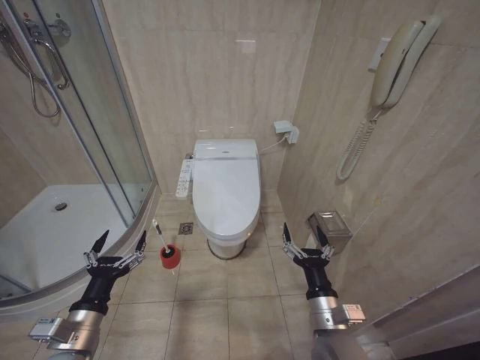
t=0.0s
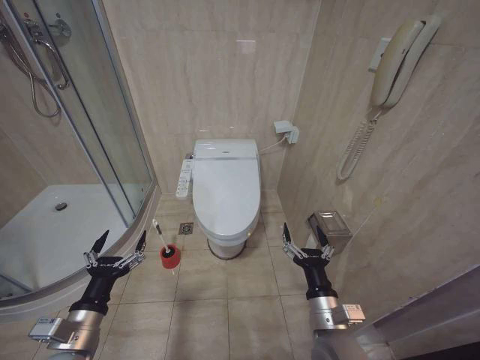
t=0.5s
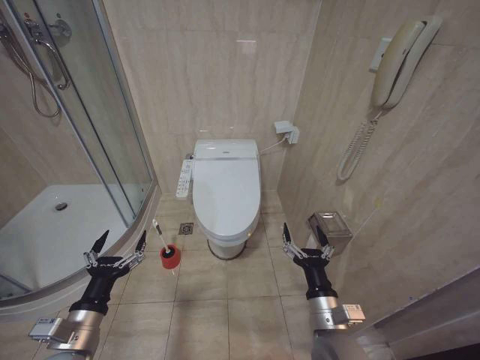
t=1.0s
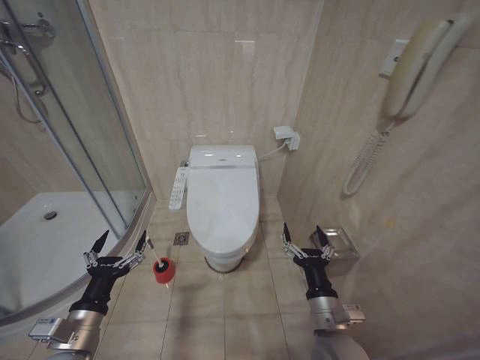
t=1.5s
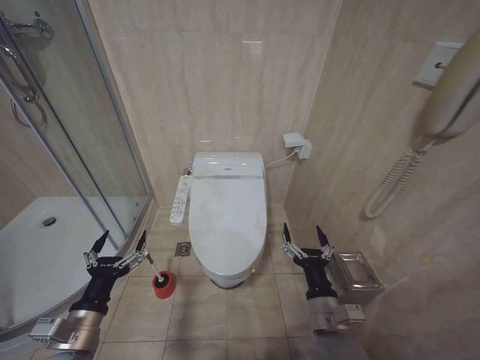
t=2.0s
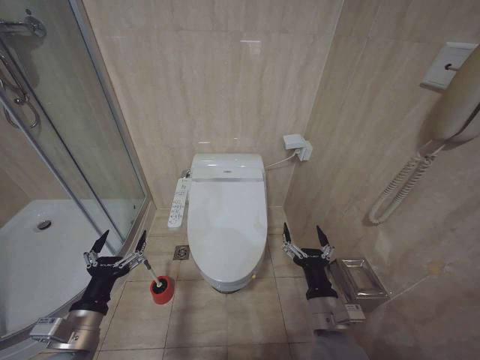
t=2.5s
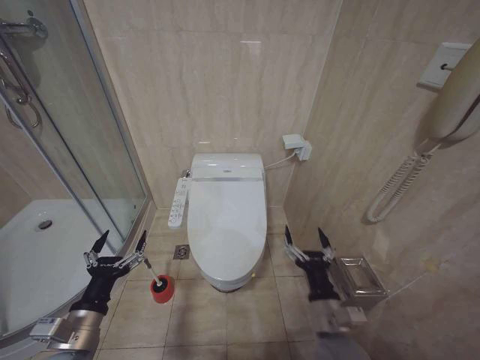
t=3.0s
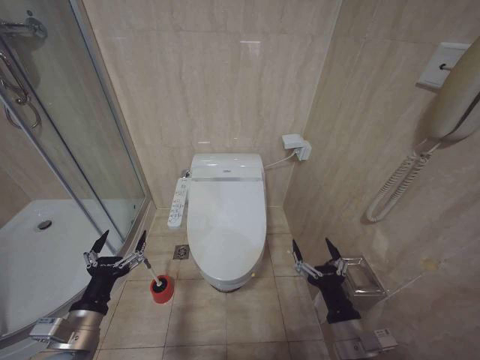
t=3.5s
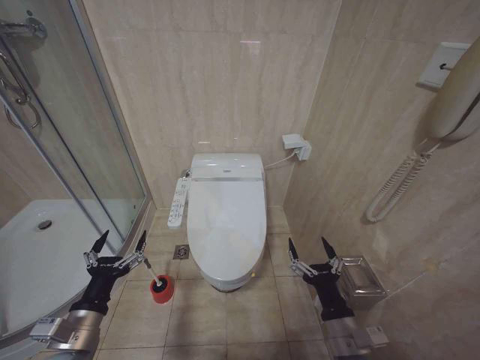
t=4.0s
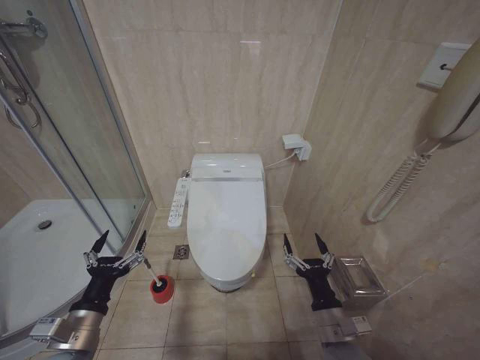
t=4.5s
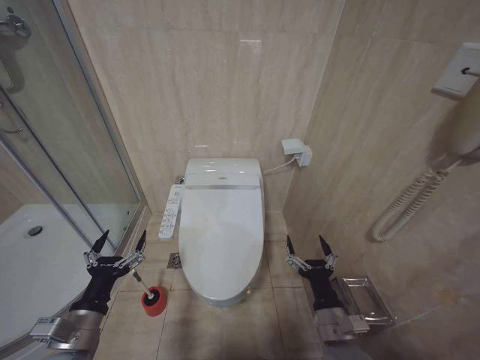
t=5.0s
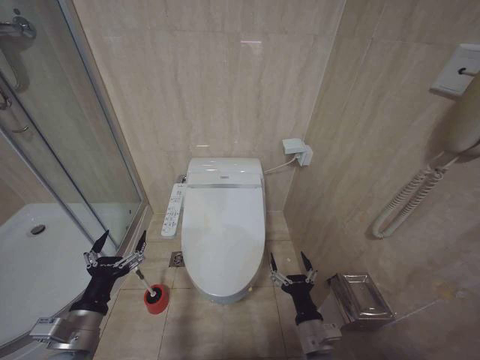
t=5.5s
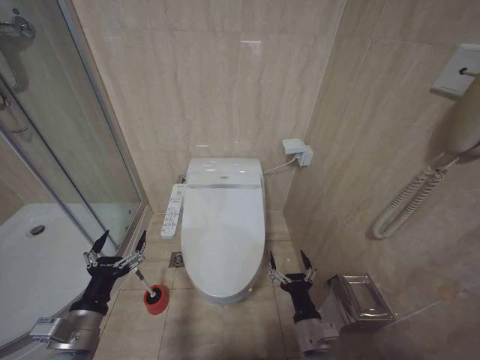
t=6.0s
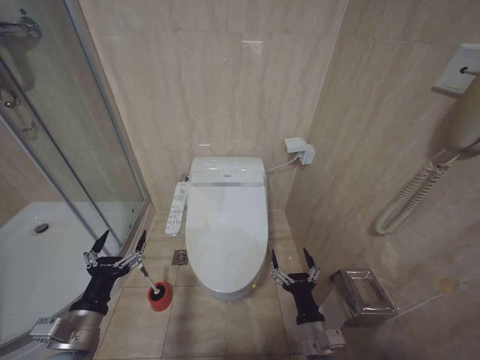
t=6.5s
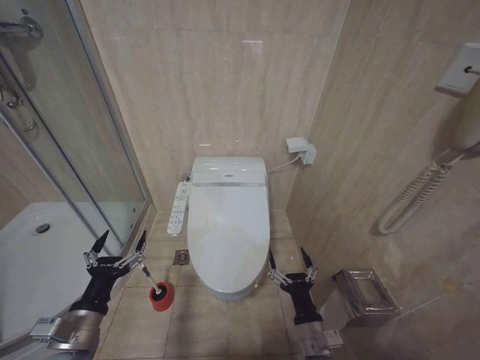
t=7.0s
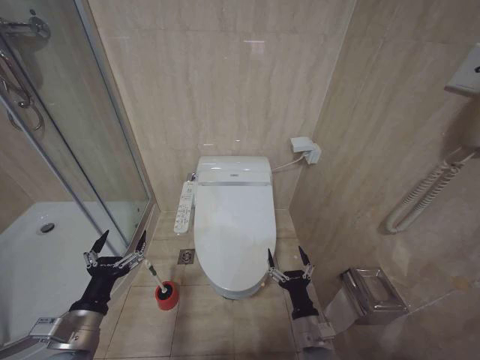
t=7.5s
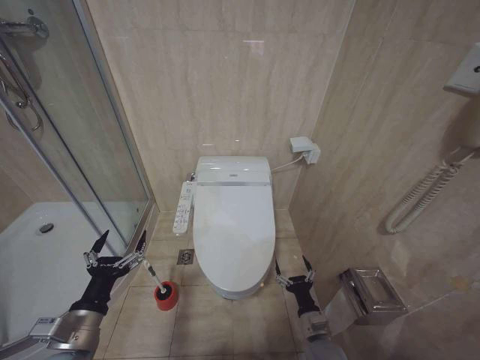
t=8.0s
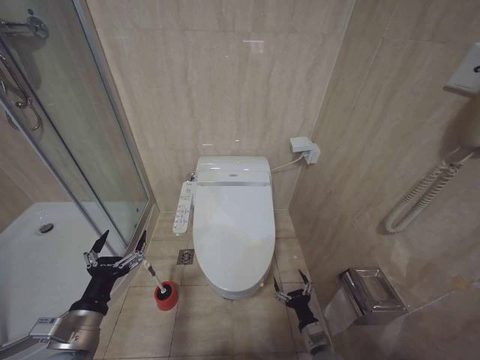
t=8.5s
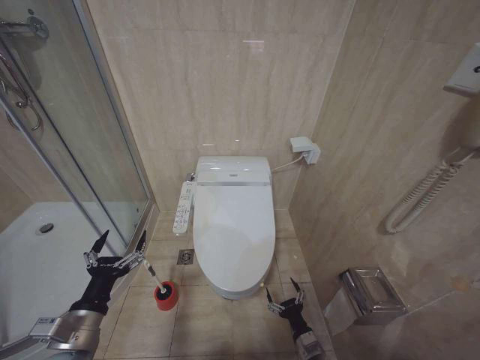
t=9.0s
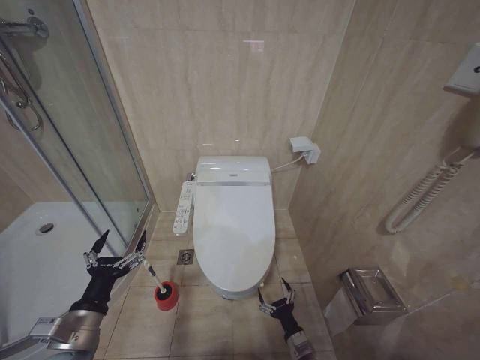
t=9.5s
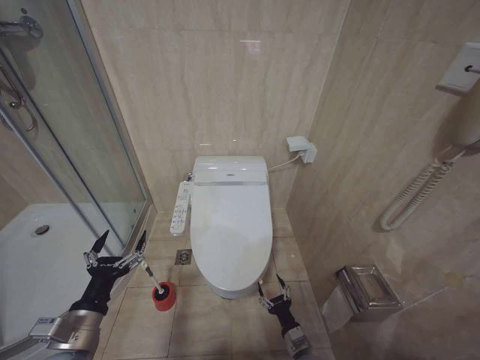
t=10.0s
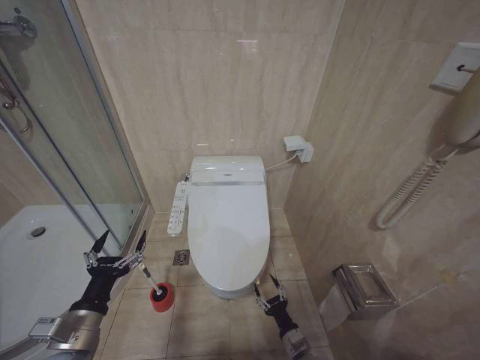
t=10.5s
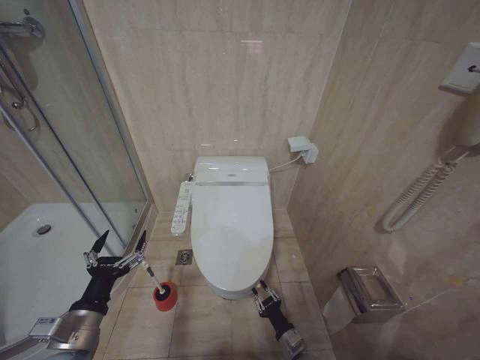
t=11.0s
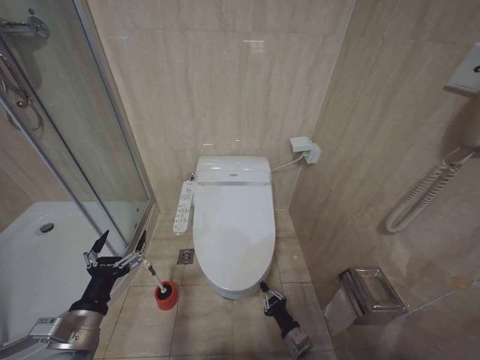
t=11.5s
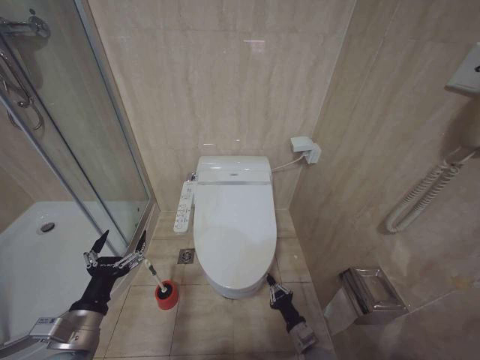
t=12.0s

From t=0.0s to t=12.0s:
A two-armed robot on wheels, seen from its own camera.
Task of the whole recording: Open the toilet lid, clean the toilet bowl with a toilet brush, close the toilet lid, and flush.
From t=2.0s to t=4.0s: The right gripper ends up about 5 cm from where it was.
From t=4.0s to t=6.0s: The right gripper shifts roughly 10 cm downward.
From t=6.0s to t=8.0s: The right gripper goes some 10 cm downward.
From t=8.0s to t=10.0s: The right gripper travels downward by approximately 10 cm.
From t=10.0s to t=12.0s: The right gripper closes.

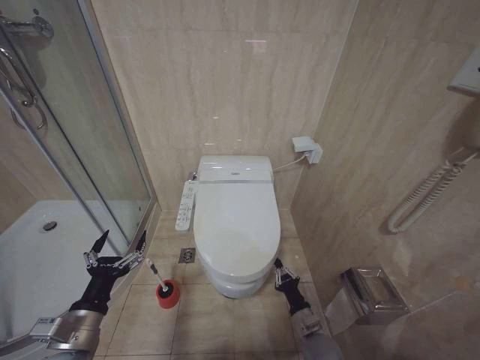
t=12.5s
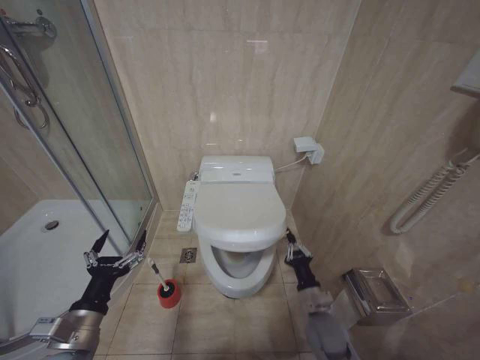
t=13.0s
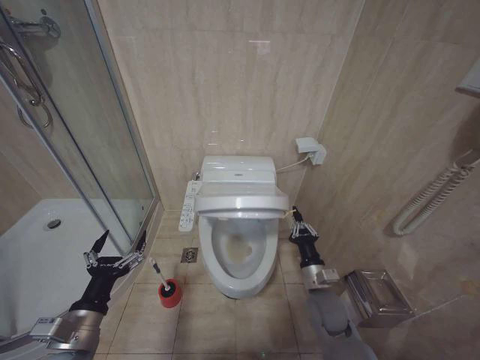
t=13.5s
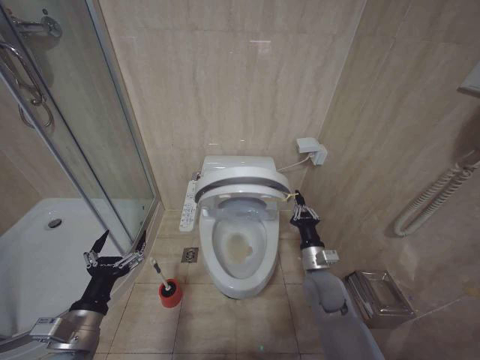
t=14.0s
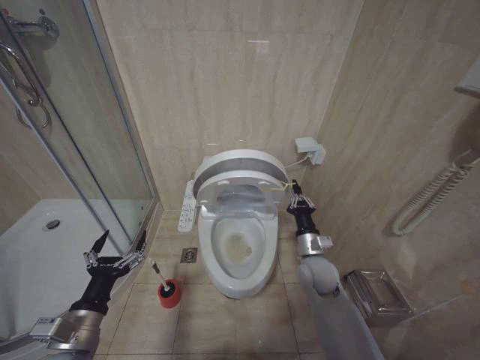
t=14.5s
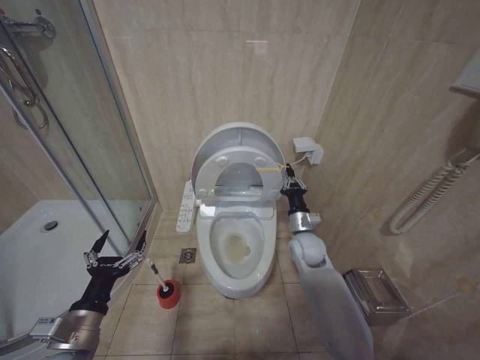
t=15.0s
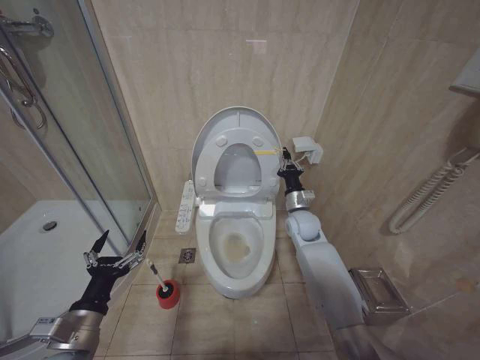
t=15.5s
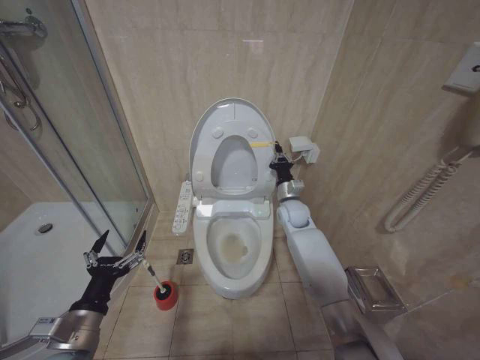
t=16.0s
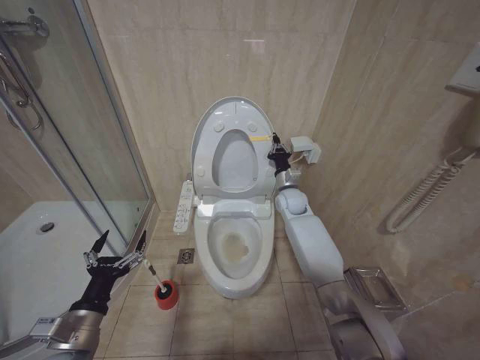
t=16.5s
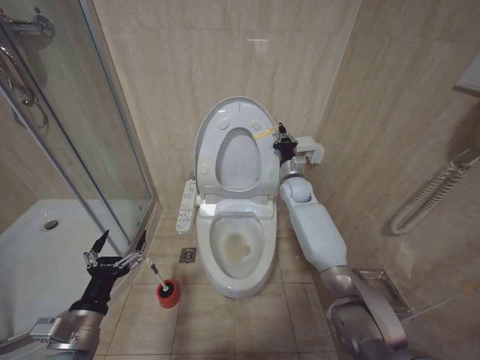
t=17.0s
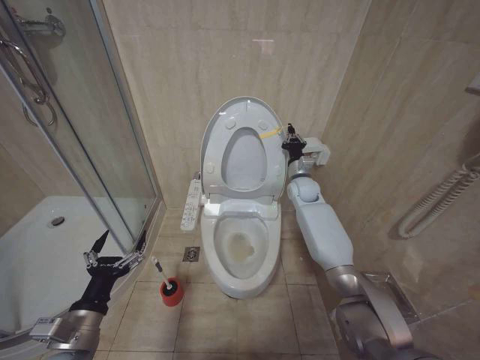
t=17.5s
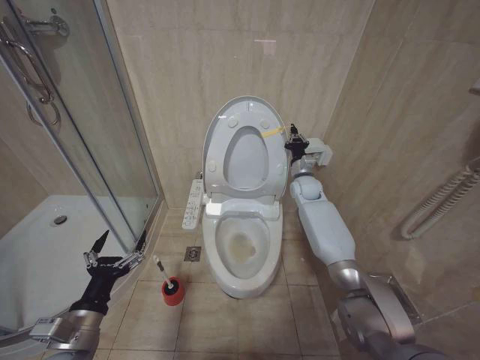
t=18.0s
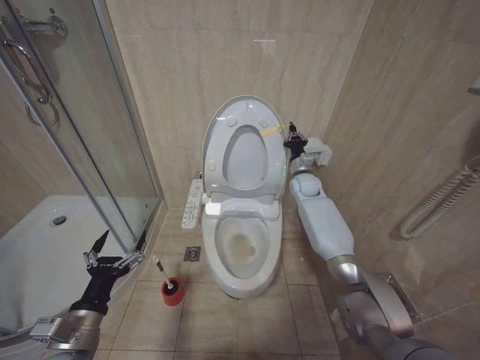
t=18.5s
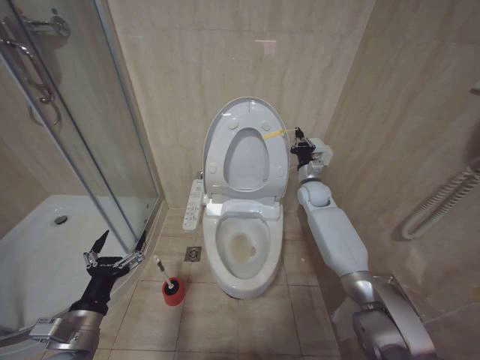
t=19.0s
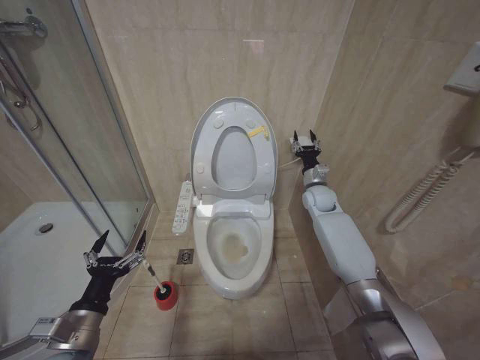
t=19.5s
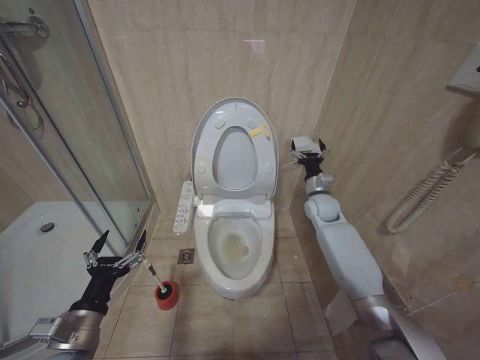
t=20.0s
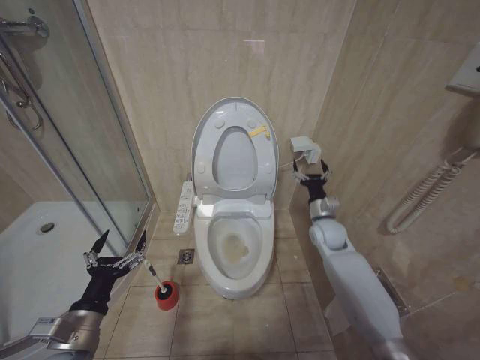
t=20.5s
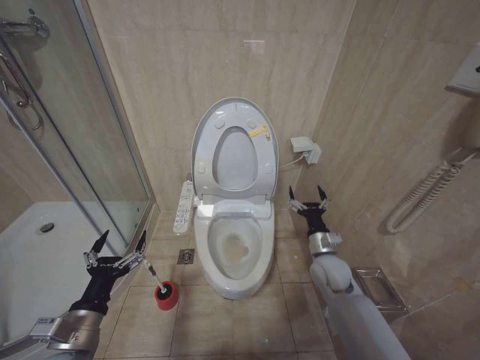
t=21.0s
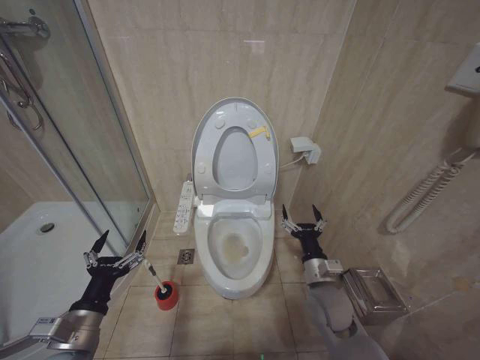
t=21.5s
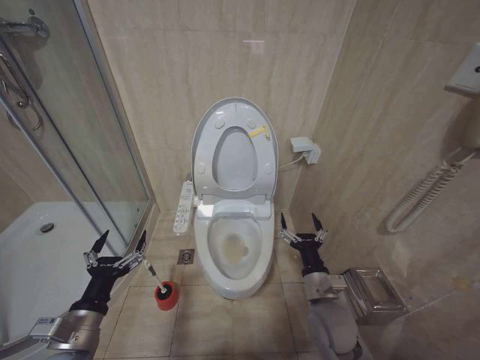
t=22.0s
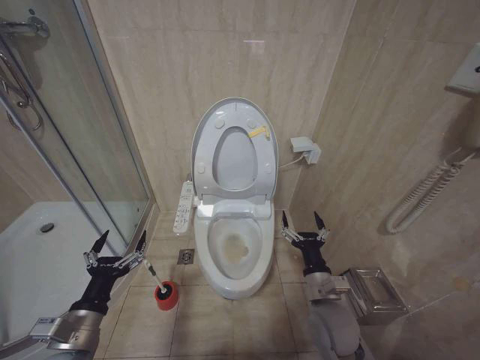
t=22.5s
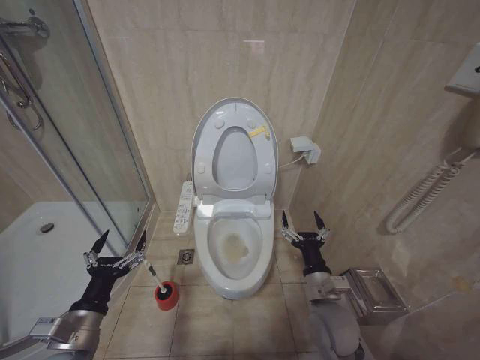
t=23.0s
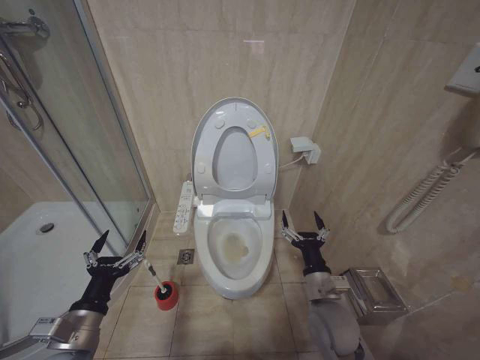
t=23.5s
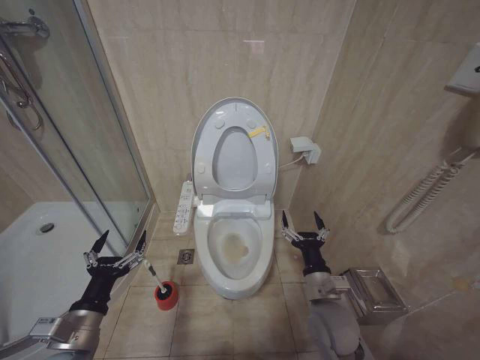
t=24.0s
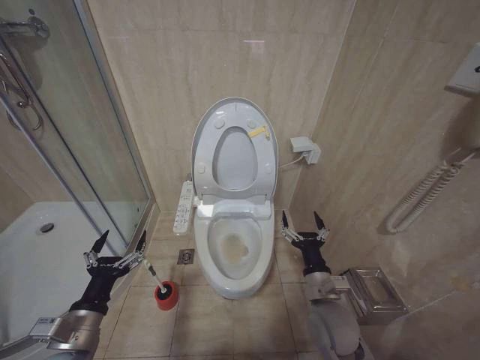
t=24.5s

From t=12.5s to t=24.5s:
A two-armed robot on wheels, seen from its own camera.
Task of the whole recording: Open the toilet lid, clean the toilet bowl with a toilet brush, close the toilet lid, and flush.
From t=12.5s to t=14.5s: The right gripper goes approximately 20 cm upward and forward.
From t=14.5s to t=16.5s: The right gripper travels forward and upward by roughly 20 cm.
From t=16.5s to t=18.5s: The right gripper shifts some 5 cm to the right.
From t=18.5s to t=20.5s: The right gripper travels backward and downward by approximately 15 cm, and opens up.
From t=20.5s to t=22.5s: The right gripper is displaced backward by approximately 20 cm.
From t=22.5s to t=24.5s: The two grippers keep their place.

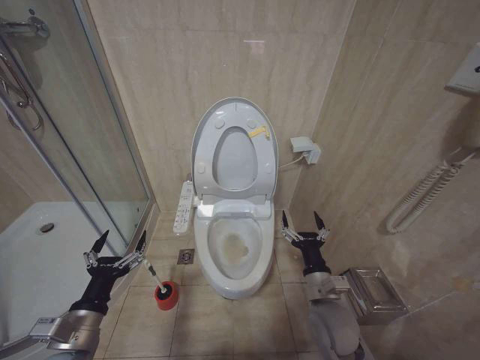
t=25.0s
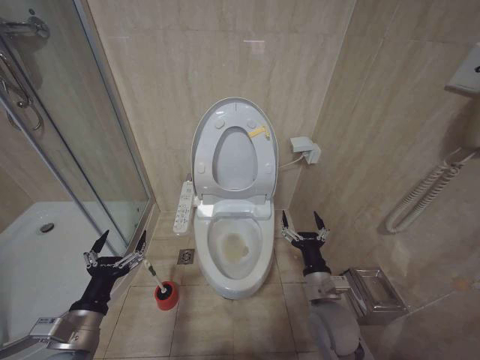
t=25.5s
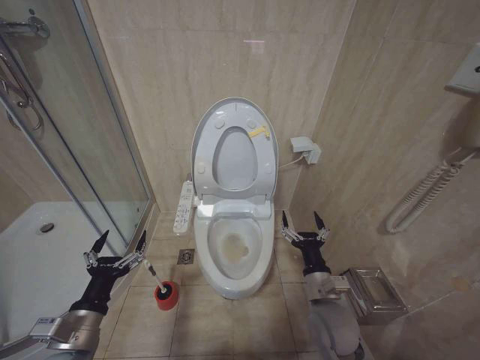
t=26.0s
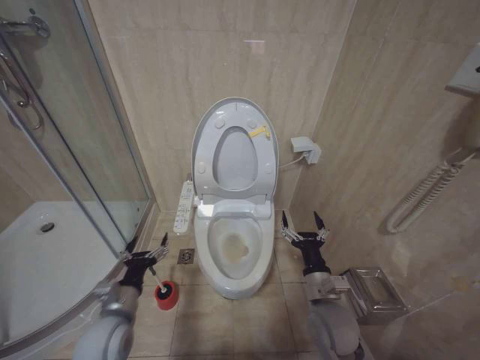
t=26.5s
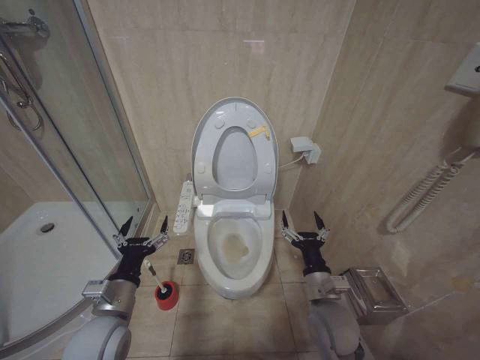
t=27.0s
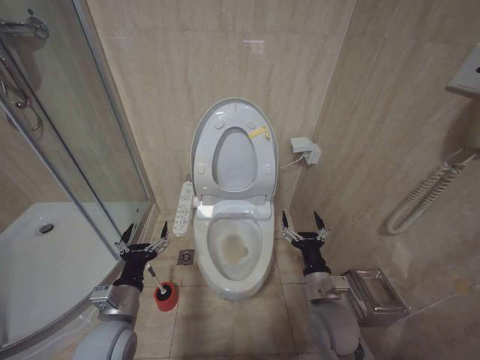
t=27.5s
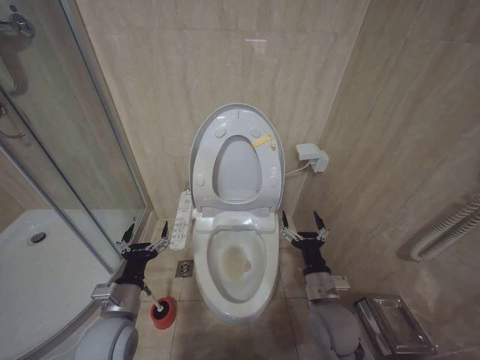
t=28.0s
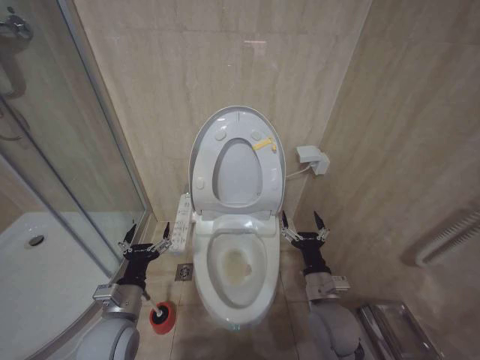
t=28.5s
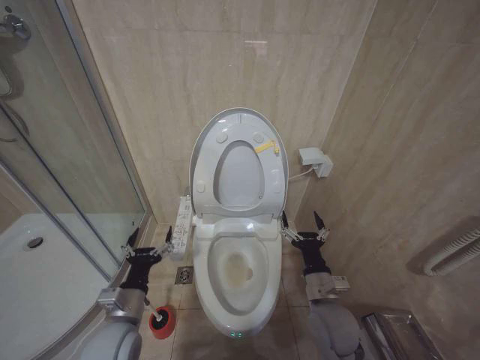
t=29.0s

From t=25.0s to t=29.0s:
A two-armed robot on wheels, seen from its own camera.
Task of the whole recording: Open the toilet lid, clean the toilet bowl with a toilet brush, close the toilet lid, and flush.
From t=25.0s to t=27.0s: The left gripper moves to the right and forward, roughly 5 cm.
From t=27.0s to t=29.0s: The grippers move only a little.
